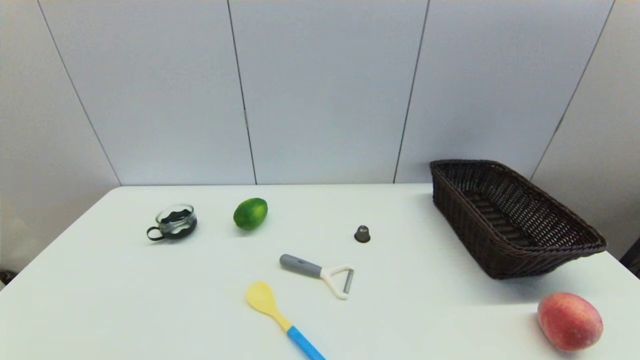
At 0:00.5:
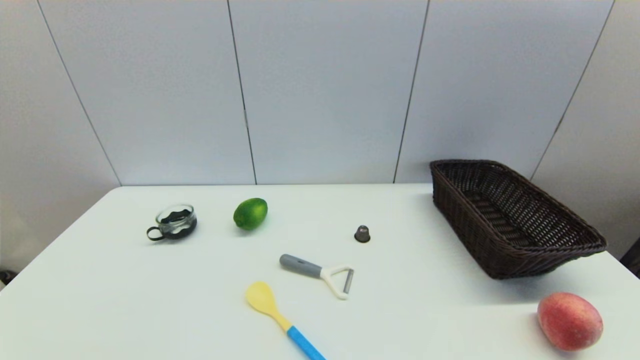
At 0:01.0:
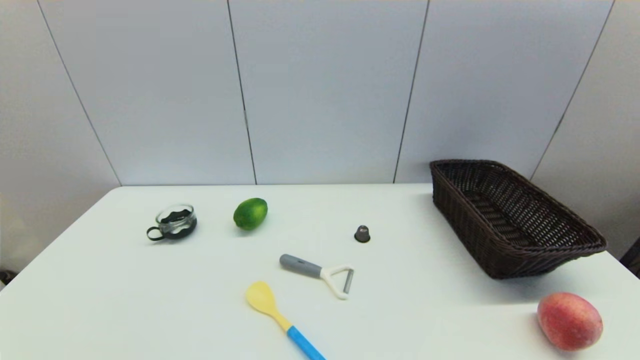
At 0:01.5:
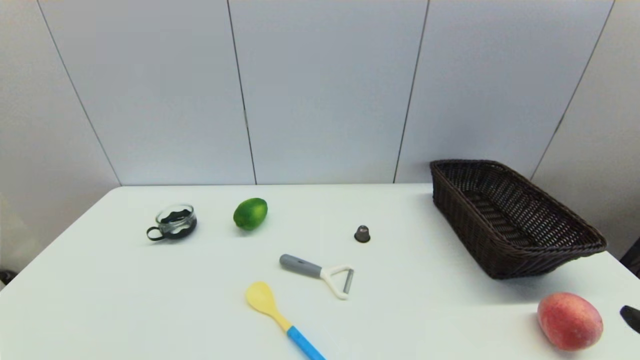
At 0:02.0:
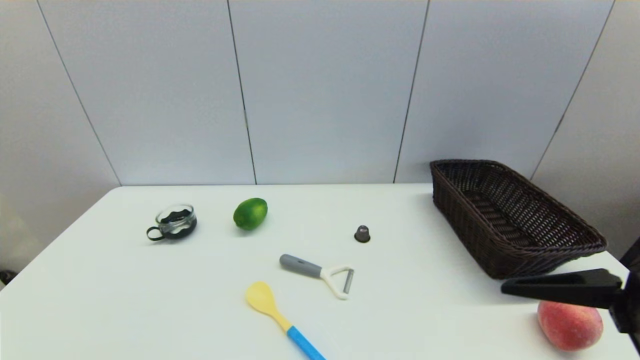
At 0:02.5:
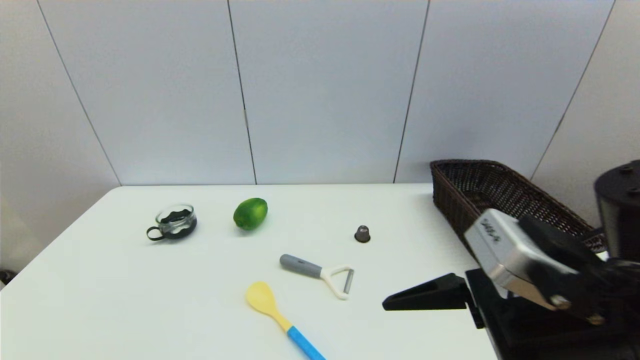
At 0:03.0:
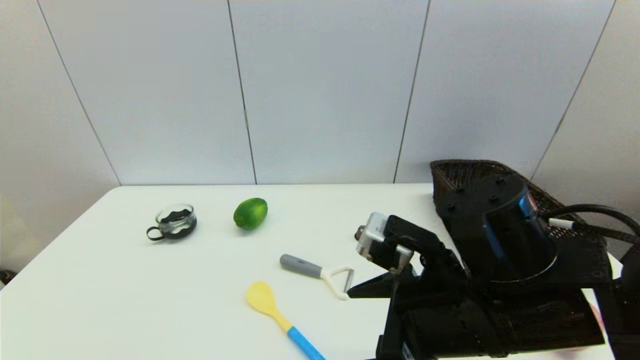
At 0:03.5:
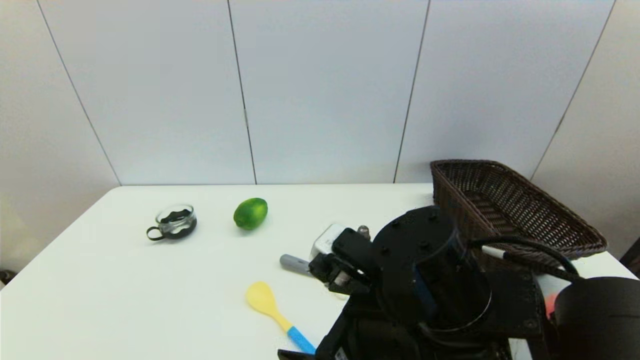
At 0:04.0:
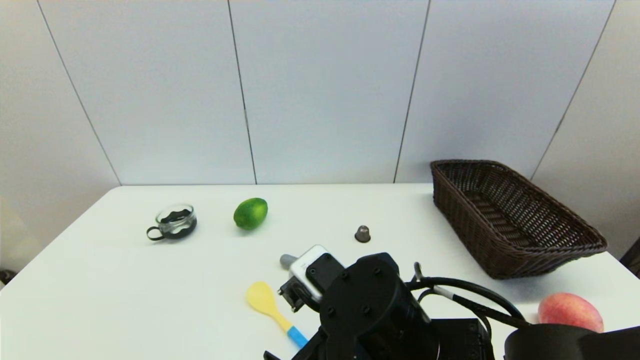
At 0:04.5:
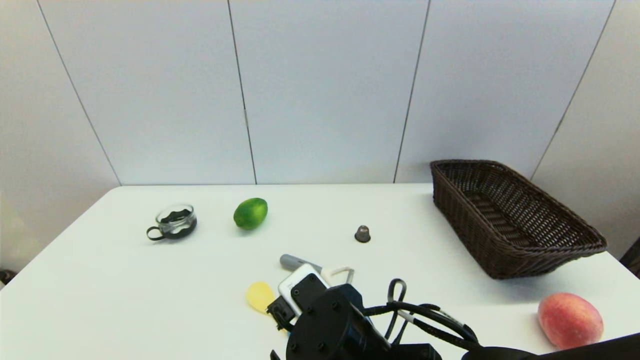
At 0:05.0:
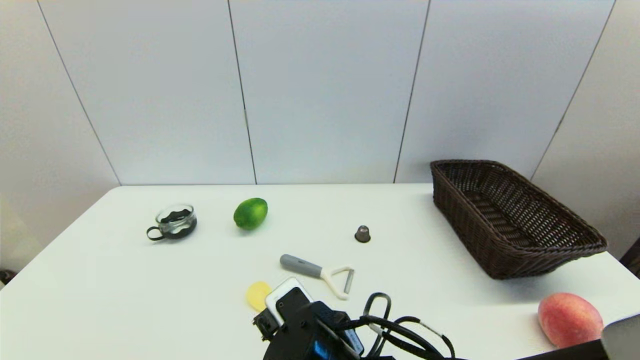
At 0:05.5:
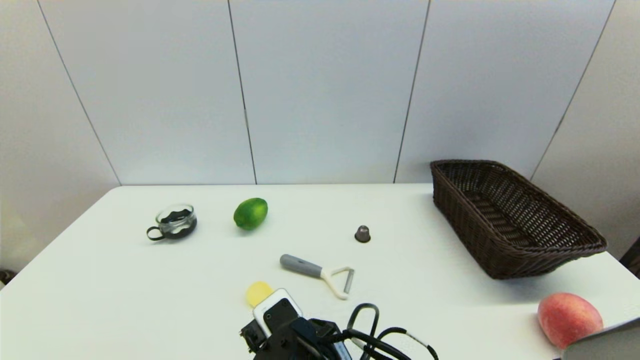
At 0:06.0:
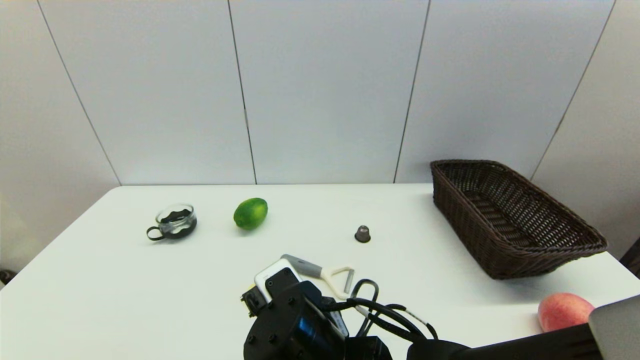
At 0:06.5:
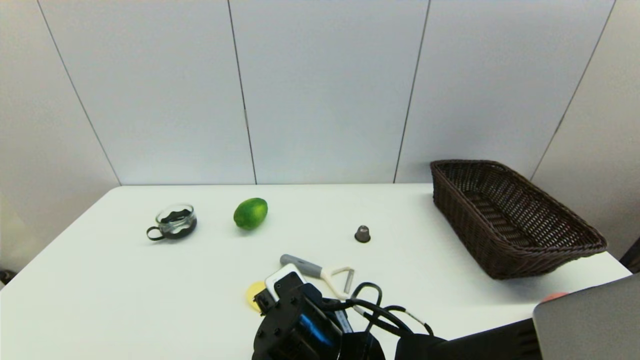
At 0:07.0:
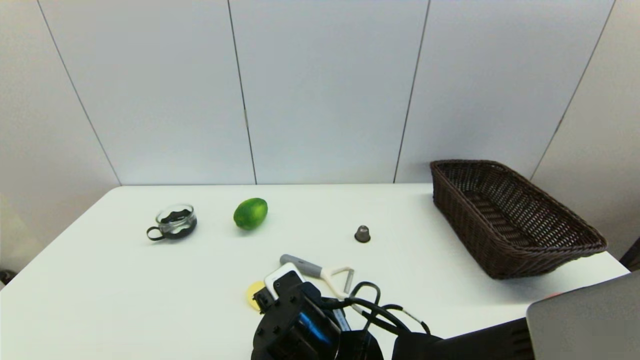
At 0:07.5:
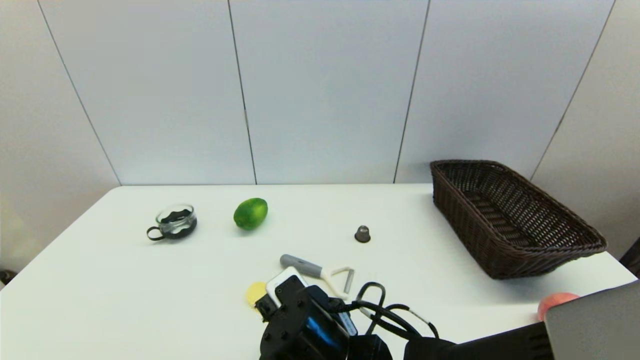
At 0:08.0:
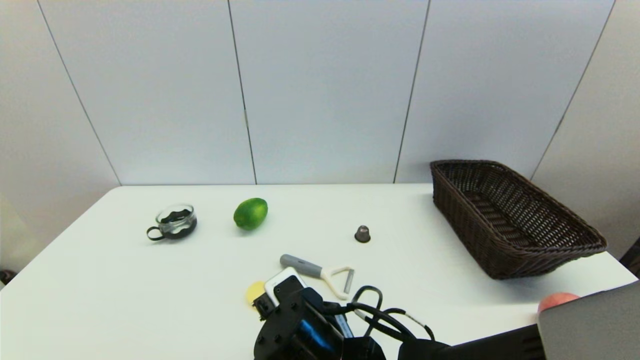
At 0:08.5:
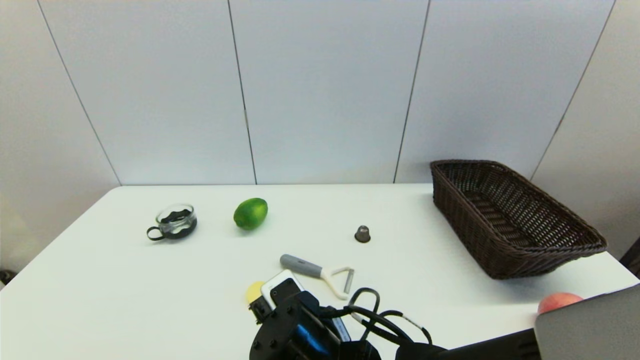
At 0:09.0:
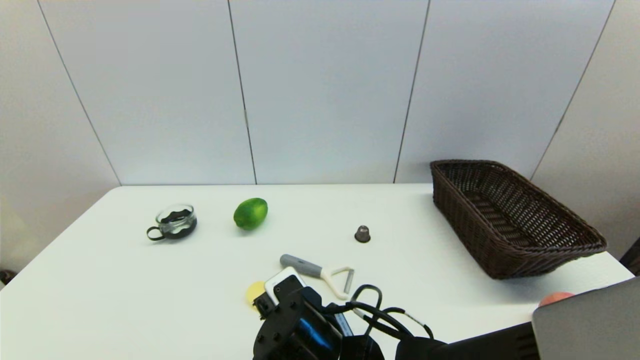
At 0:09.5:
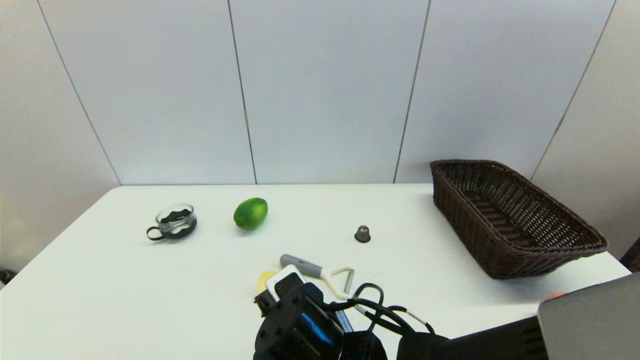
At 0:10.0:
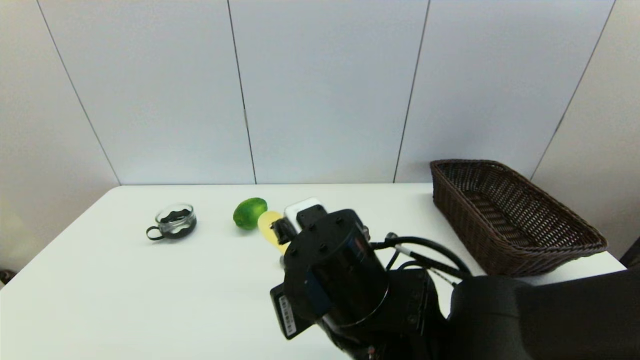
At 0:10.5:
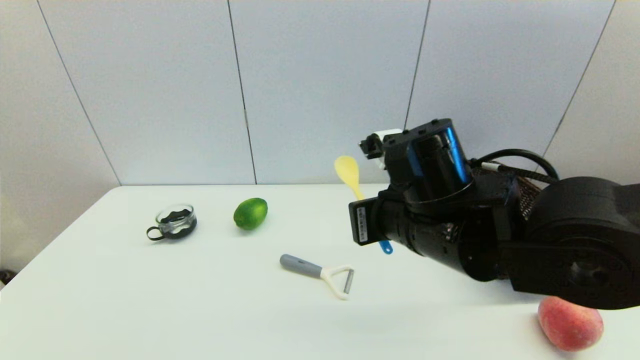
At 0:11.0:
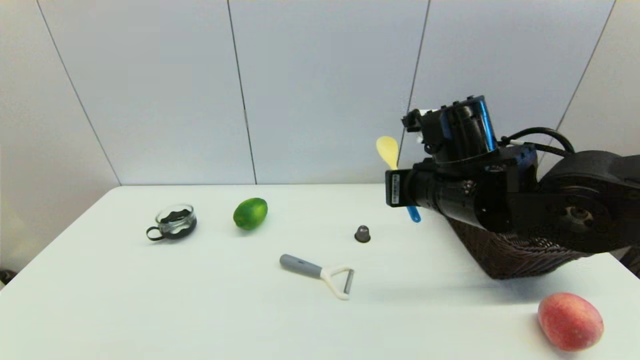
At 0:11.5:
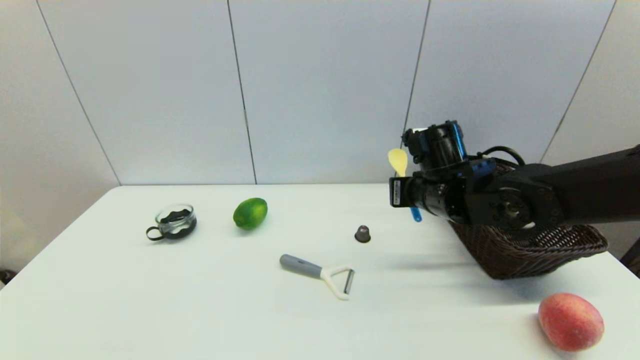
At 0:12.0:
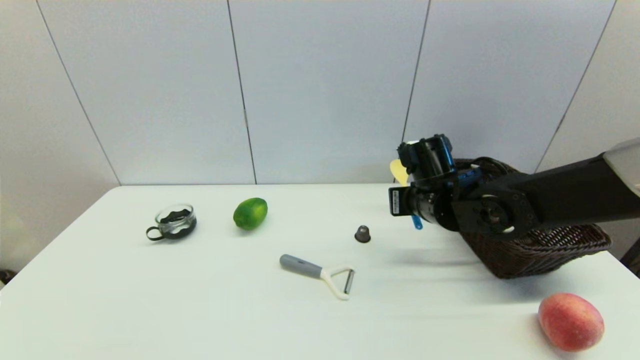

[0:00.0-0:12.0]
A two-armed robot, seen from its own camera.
0:00.0 to 0:02.0: The right gripper is displaced upward, forward and to the left by roughly 20 cm.
0:02.0 to 0:04.0: The right gripper is displaced to the left and downward by about 20 cm.
0:04.0 to 0:06.0: The right gripper moves some 5 cm.
0:06.0 to 0:08.0: The grippers make only small movements.
0:08.0 to 0:10.0: The right gripper goes approximately 10 cm upward, and closes up.
0:10.0 to 0:12.0: The right gripper travels forward and to the right by some 20 cm.

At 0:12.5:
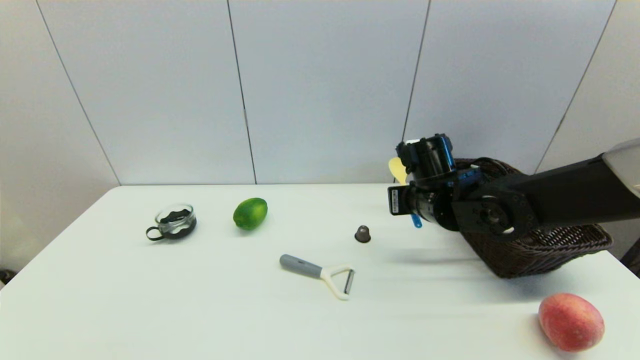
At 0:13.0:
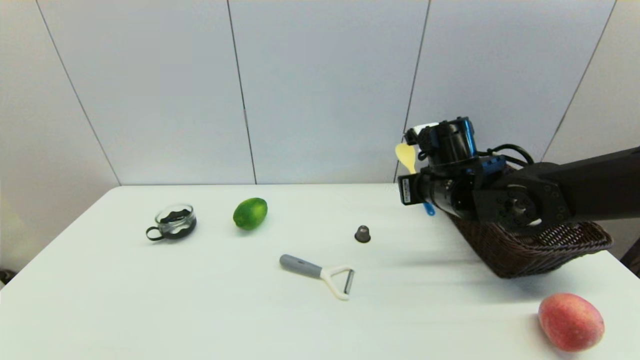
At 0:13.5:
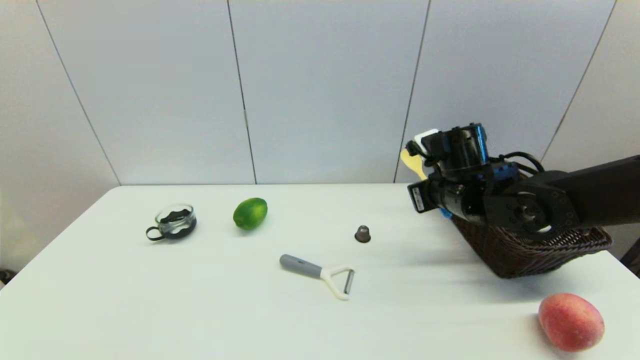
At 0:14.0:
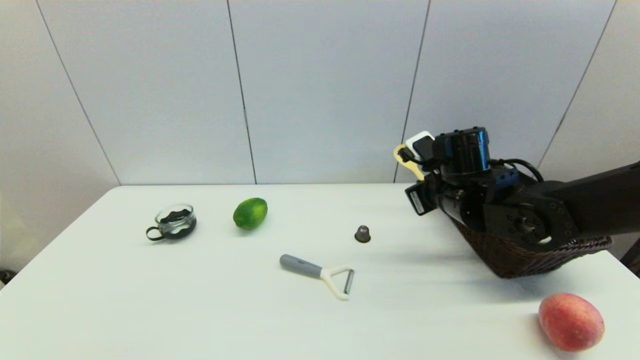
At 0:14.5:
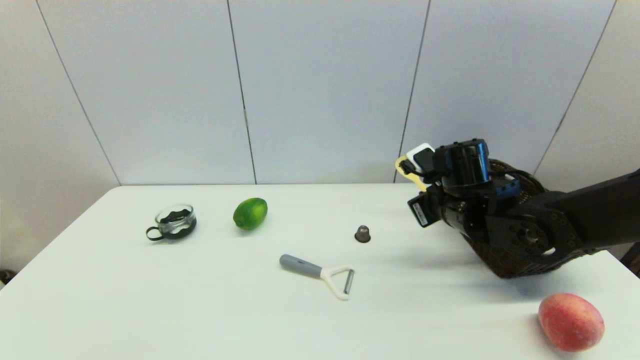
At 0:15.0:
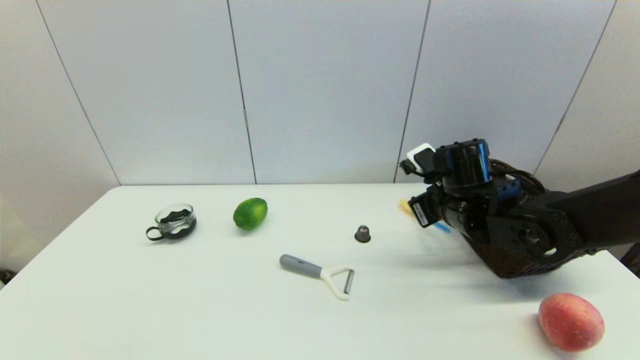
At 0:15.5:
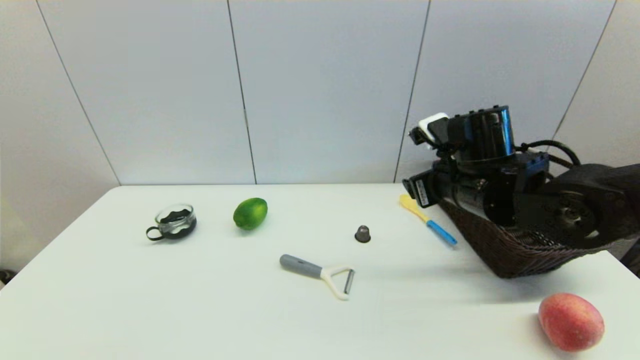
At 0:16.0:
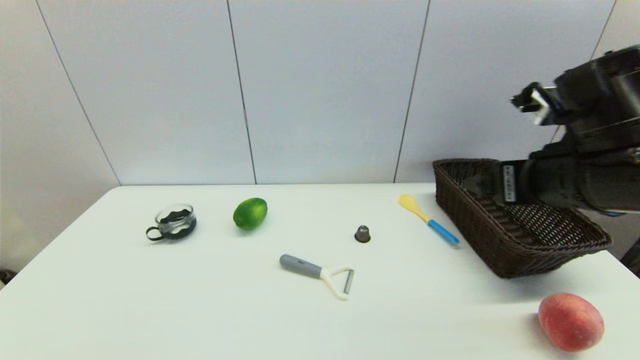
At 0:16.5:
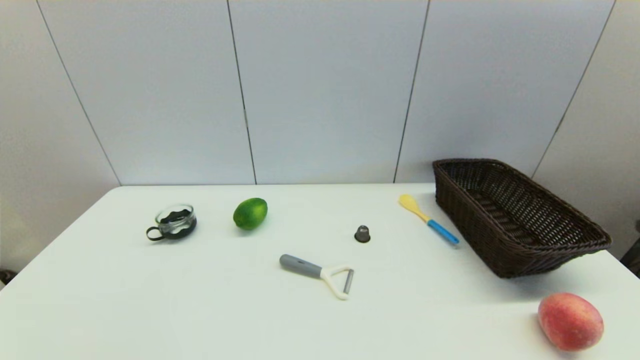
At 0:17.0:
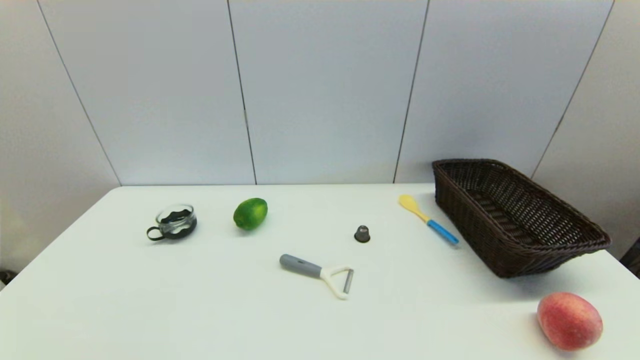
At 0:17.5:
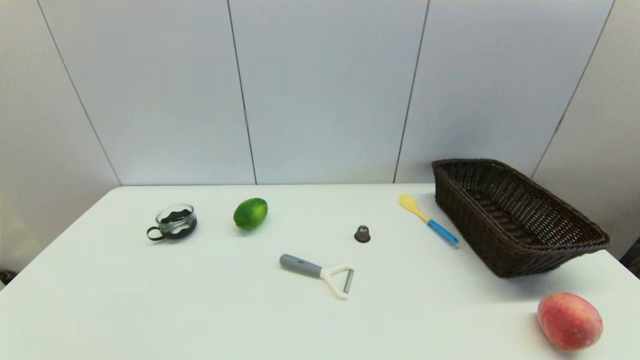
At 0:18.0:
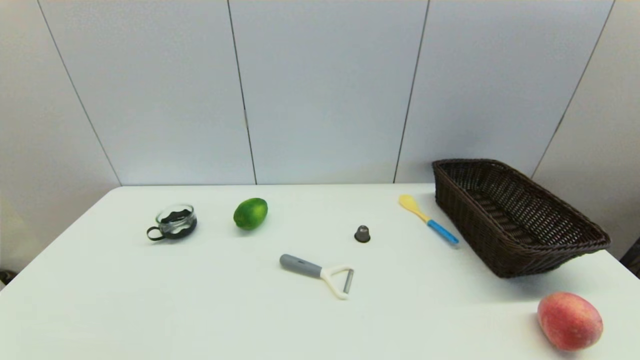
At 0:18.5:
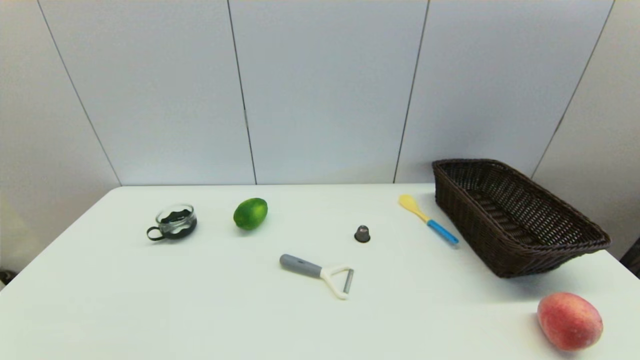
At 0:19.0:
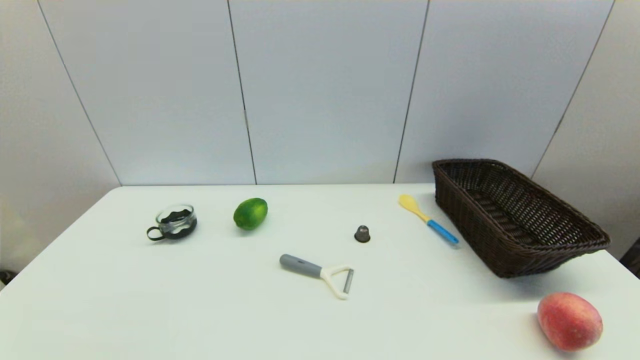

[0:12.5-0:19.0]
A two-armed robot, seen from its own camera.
0:14.5 to 0:17.0: The right gripper heads backward and to the right, covering approximately 40 cm, and opens.

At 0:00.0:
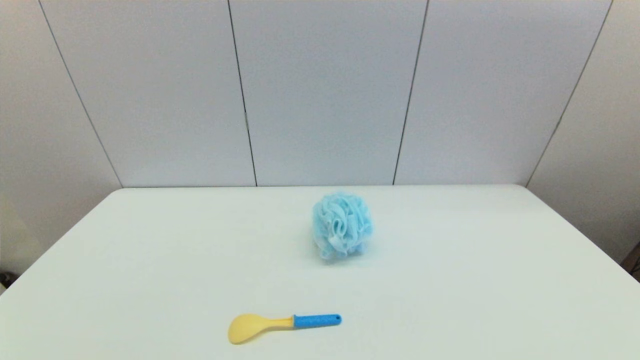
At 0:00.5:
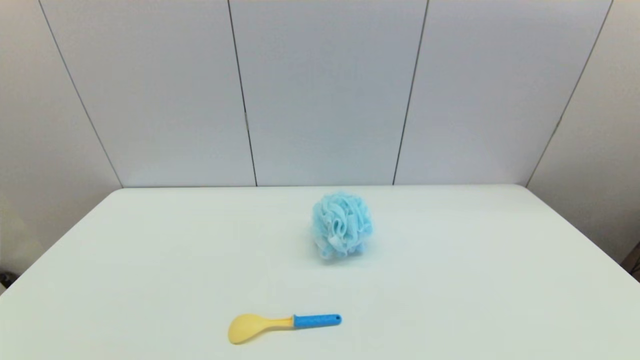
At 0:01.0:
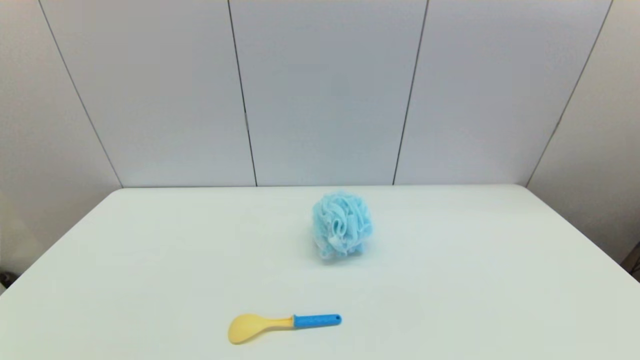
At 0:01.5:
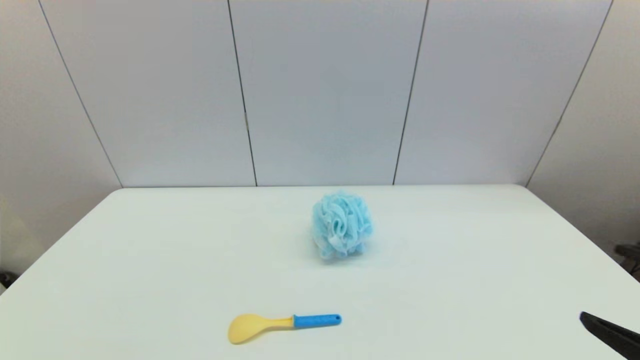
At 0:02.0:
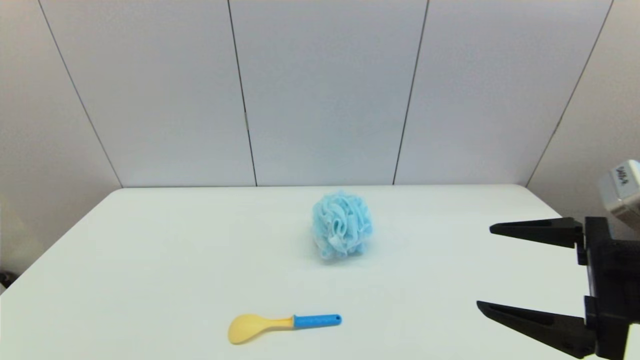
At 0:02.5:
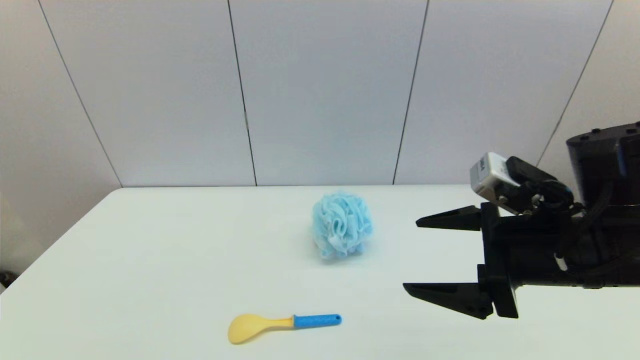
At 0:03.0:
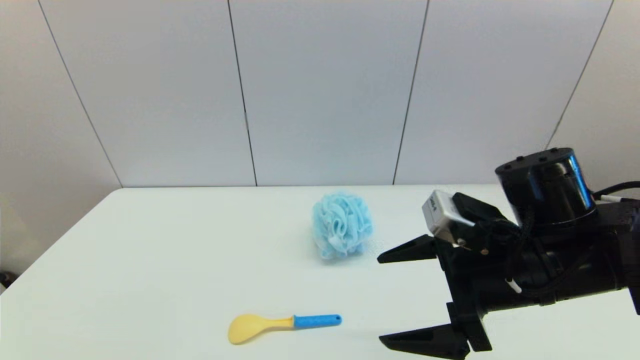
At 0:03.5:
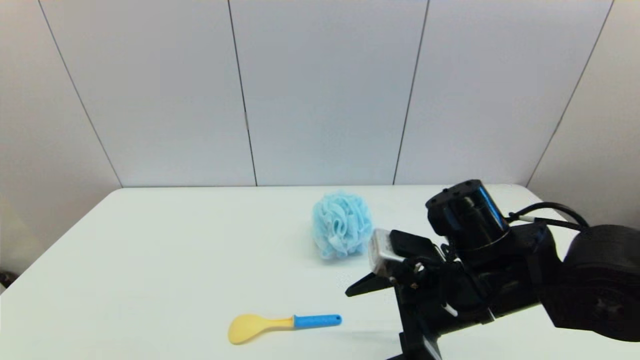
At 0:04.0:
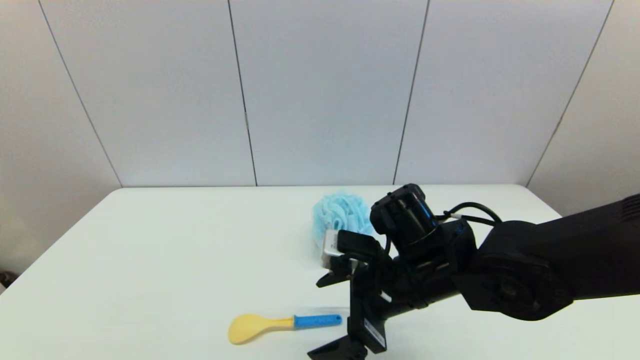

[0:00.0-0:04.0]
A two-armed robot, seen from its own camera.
0:00.0 to 0:02.0: The right gripper heads forward, upward and to the left, covering about 25 cm.
0:02.0 to 0:04.0: The right gripper heads to the left, downward and forward, covering some 20 cm.
